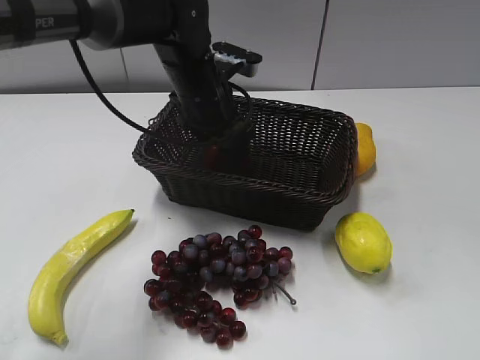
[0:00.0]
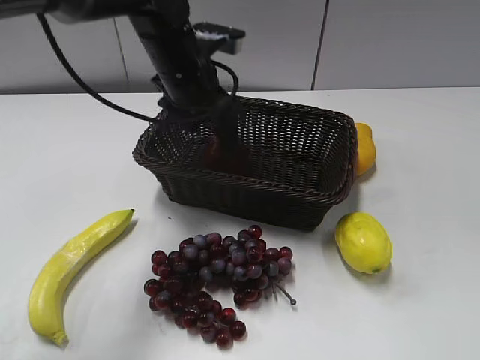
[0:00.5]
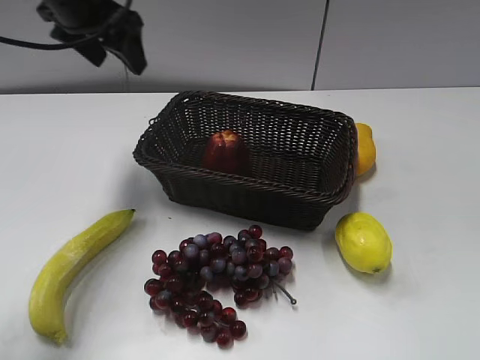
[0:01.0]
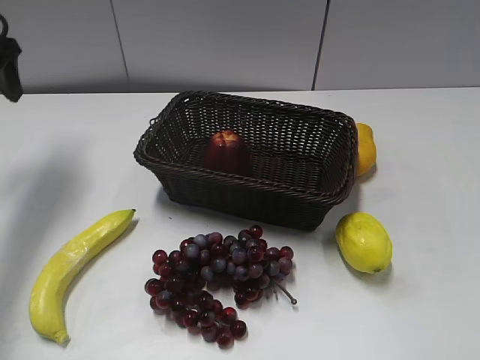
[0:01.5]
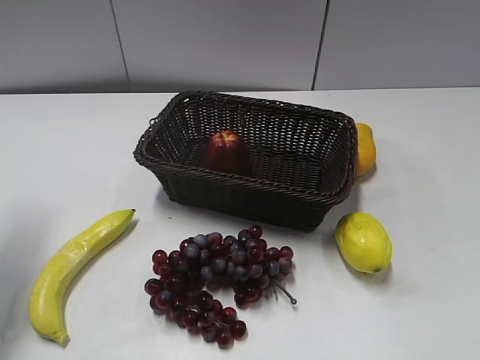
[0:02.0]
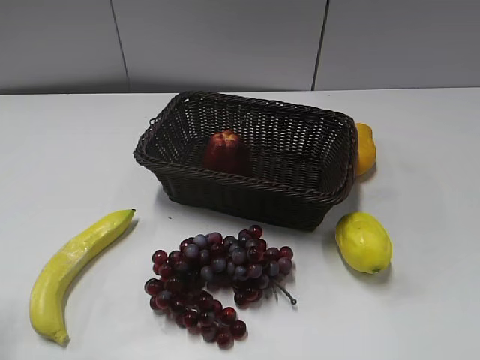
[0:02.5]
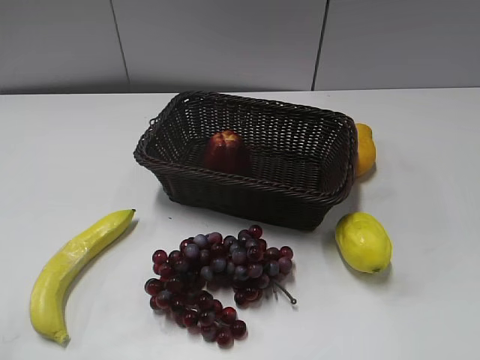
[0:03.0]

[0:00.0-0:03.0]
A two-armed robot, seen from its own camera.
0:00.0 to 0:01.5: The left gripper moves to the left, approximately 30 cm, and opens.
0:01.5 to 0:03.0: The left gripper travels backward by some 35 cm, and closes its fingers.
